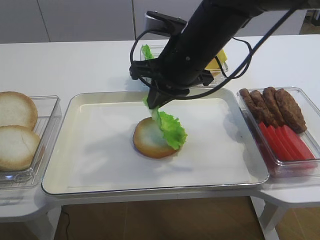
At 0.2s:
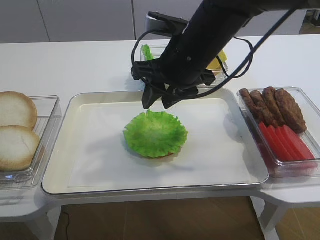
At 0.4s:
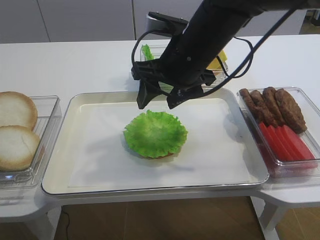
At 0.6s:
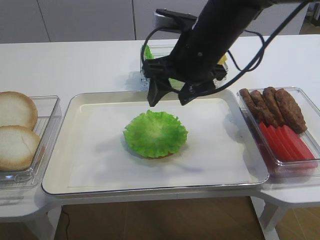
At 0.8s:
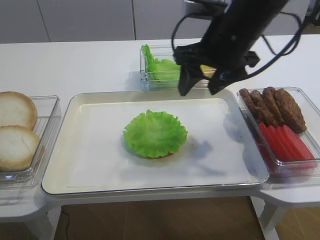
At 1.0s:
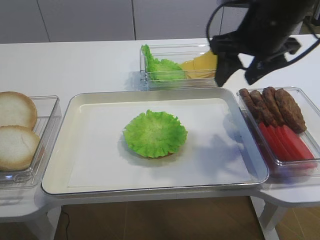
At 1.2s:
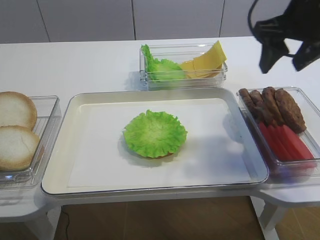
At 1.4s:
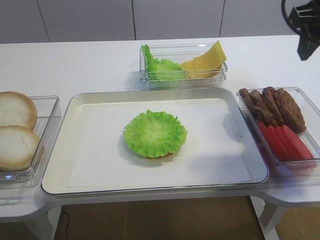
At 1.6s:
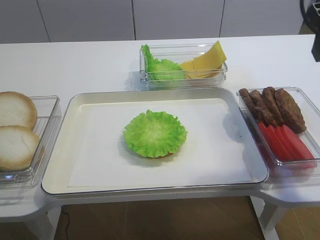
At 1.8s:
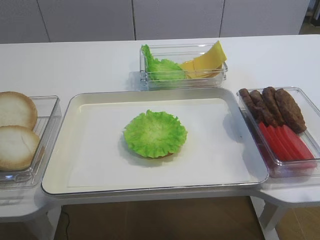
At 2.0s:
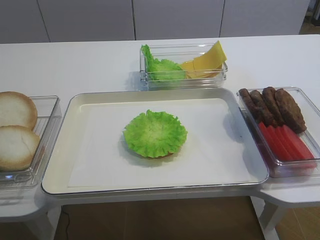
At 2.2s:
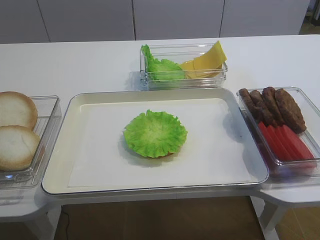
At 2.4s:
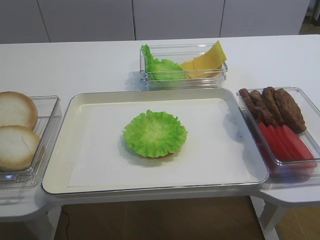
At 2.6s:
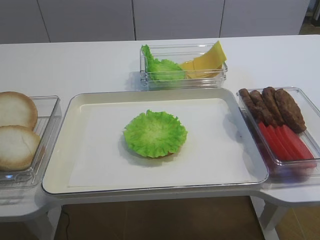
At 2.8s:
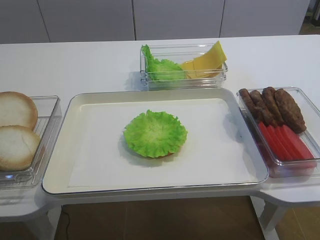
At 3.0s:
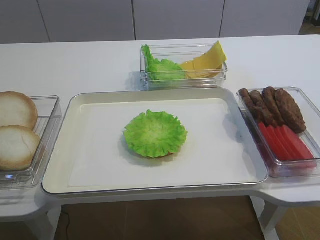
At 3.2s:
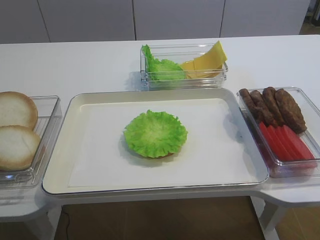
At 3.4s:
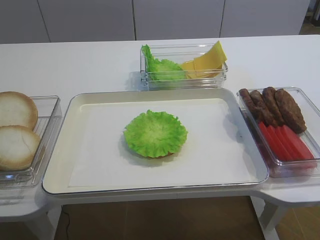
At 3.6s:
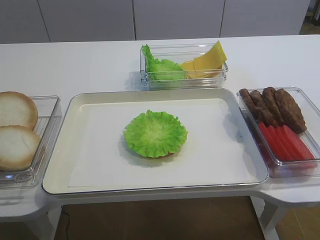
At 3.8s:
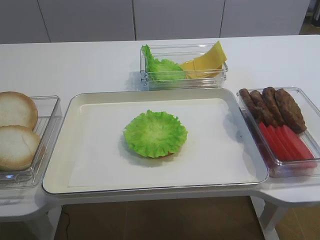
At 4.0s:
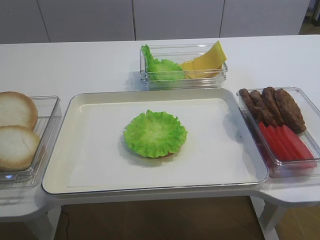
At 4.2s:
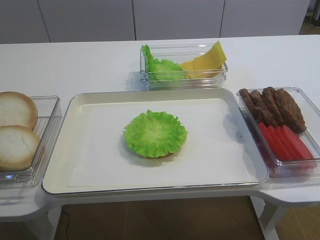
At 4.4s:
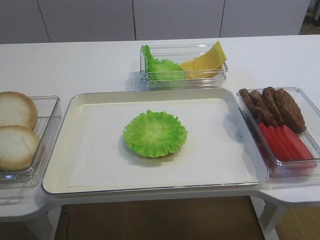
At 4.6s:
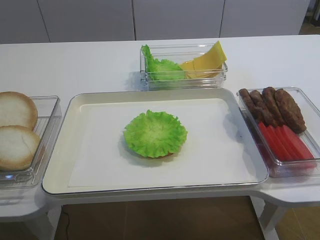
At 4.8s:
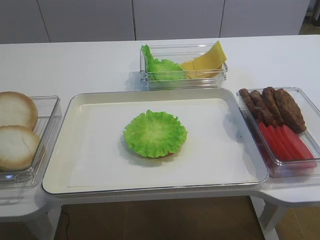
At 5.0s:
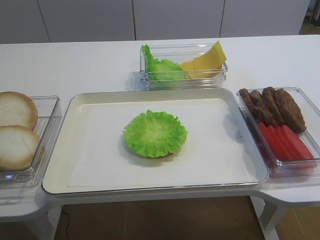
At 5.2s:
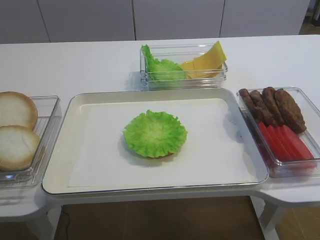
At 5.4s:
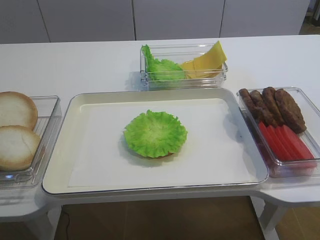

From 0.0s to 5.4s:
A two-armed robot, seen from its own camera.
From 0.0s to 1.4s: The right gripper heads to the right and upward, covering some 20 cm, and opens.
From 1.4s to 2.8s: The right gripper is displaced backward by roughly 30 cm.

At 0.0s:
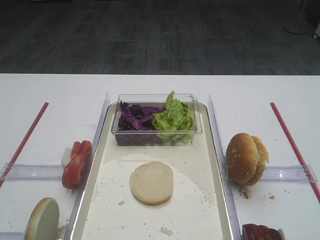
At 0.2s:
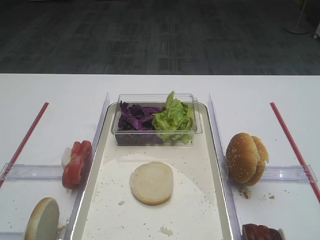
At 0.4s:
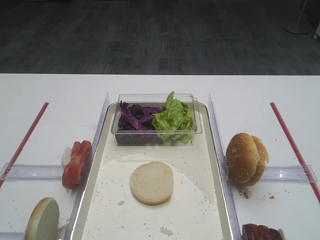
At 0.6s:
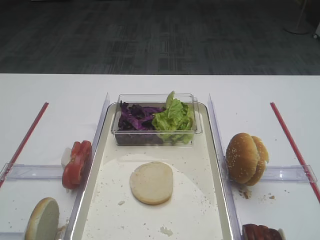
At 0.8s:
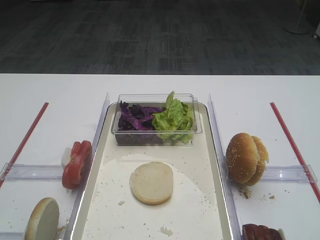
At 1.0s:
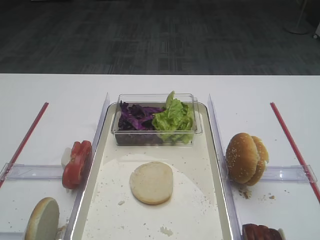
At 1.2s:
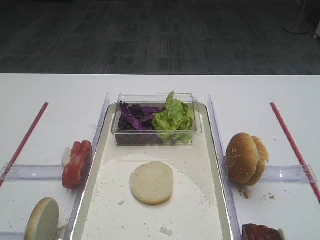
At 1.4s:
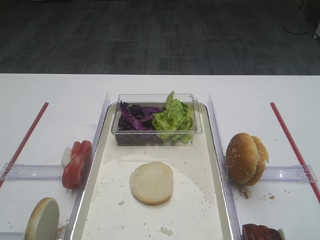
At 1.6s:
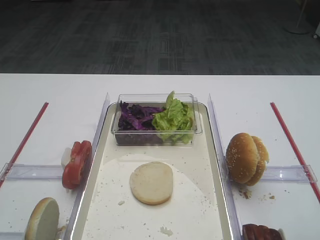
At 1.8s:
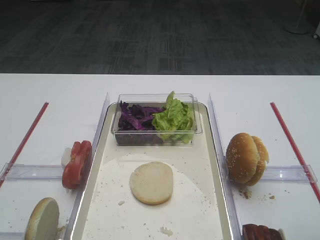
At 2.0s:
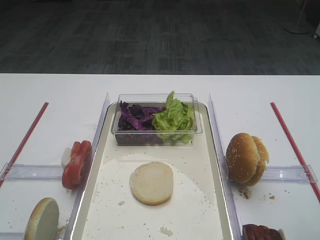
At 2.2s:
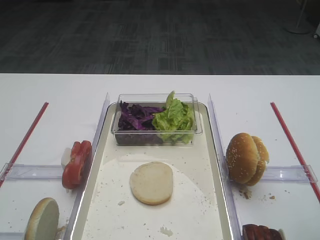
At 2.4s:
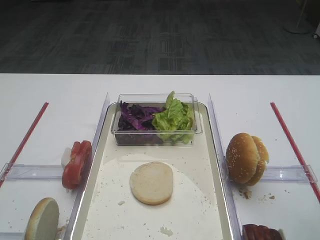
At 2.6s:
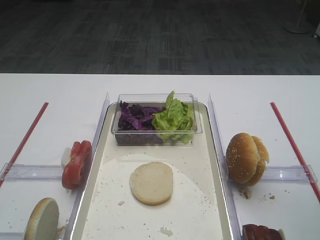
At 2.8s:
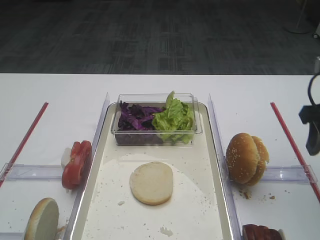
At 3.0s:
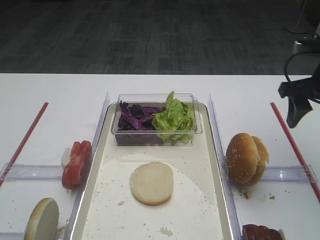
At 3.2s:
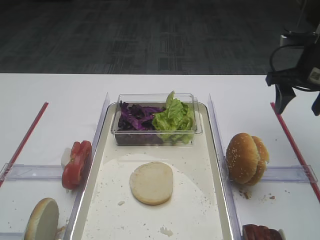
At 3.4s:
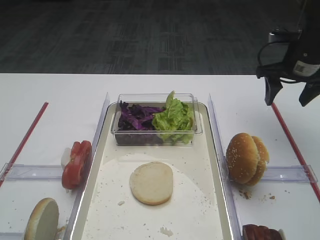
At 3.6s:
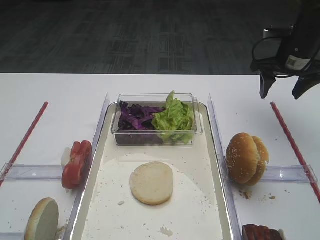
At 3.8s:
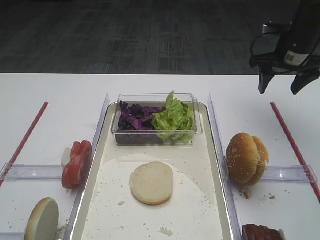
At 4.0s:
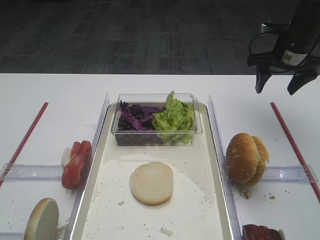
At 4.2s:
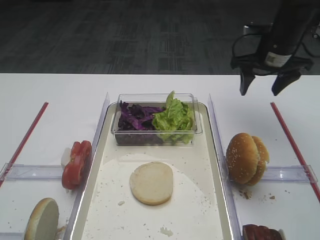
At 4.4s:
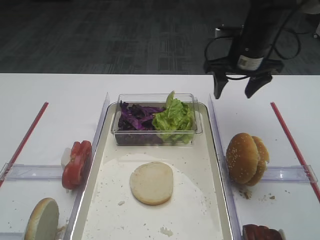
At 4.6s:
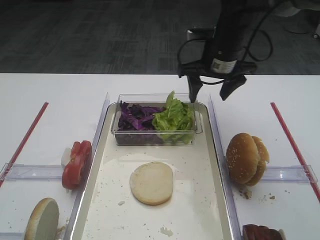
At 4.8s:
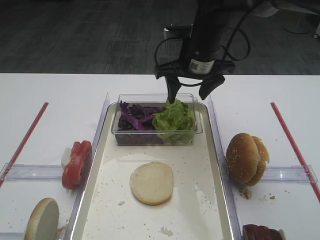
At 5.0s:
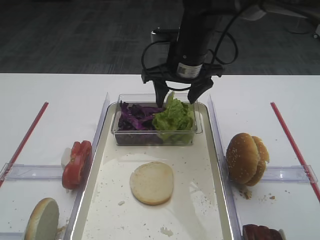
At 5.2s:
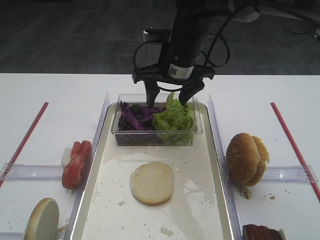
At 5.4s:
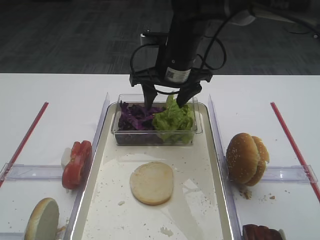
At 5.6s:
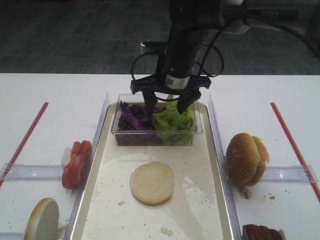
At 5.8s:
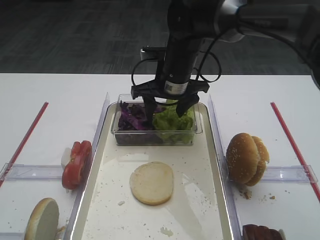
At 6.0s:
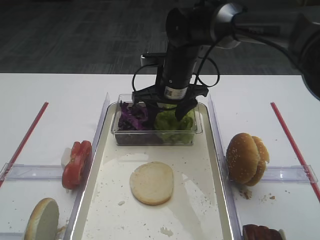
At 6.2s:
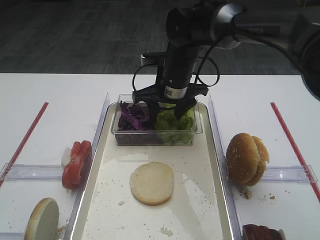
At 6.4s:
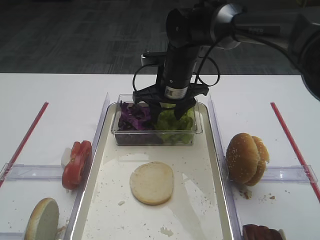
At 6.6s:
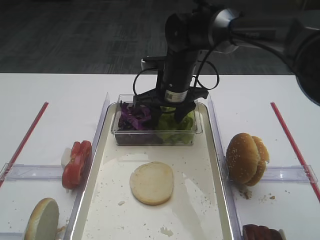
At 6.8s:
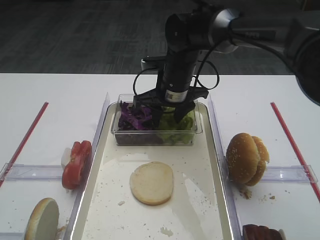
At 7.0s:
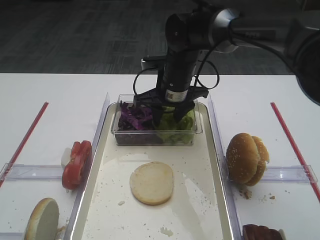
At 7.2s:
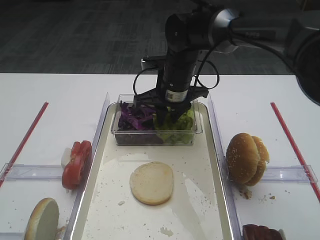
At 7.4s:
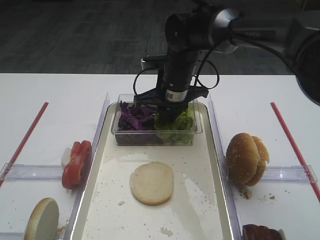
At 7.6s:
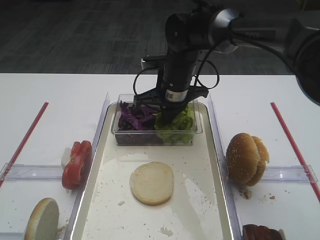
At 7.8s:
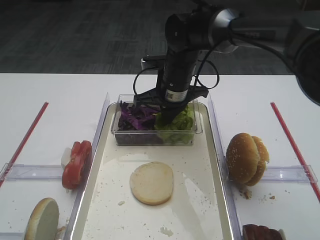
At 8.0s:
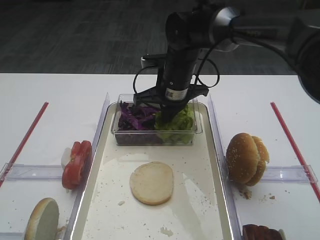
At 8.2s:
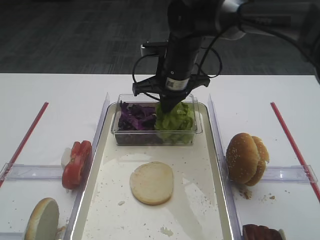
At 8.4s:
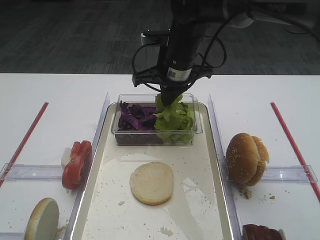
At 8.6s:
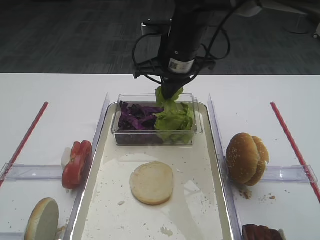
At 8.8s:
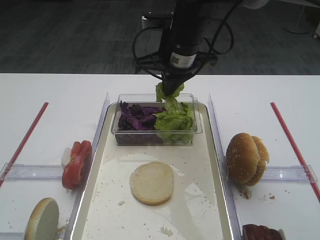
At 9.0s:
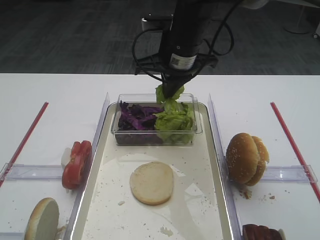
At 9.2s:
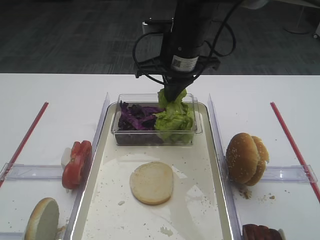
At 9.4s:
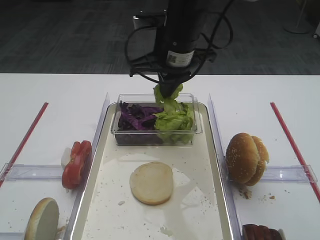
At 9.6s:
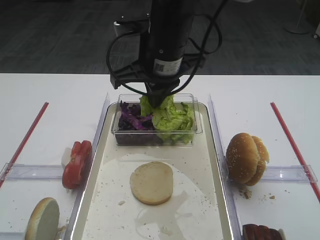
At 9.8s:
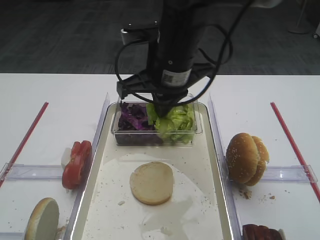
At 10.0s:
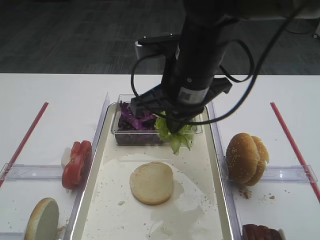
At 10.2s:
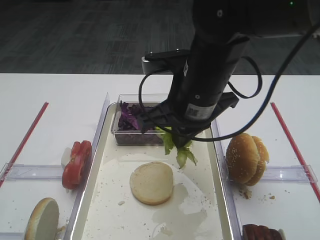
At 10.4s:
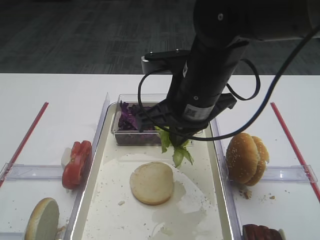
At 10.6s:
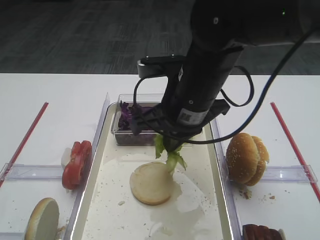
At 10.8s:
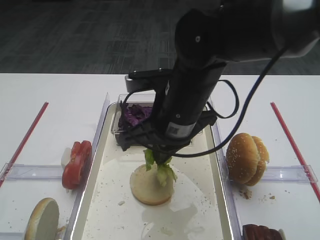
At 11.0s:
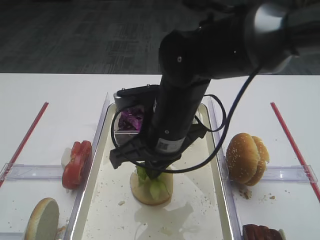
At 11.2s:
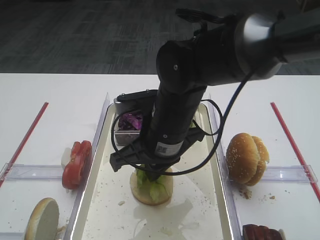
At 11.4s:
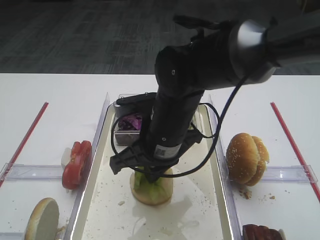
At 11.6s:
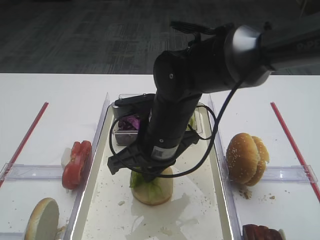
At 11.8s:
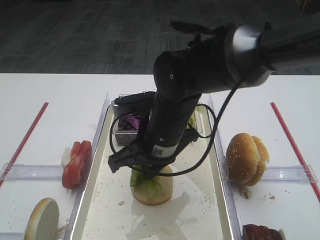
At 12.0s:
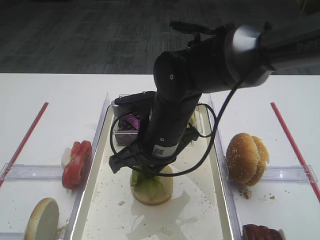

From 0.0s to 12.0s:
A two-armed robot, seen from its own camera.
Step, from 0.0s to 8.8s: Pick up the lettuce leaf with the right gripper.
From 1.6s to 3.0s: The right gripper heads forward, covering roughly 25 cm.
From 3.0s to 4.4s: The right gripper goes some 15 cm forward and to the left.
From 4.4s to 6.0s: The right gripper travels to the left by roughly 15 cm.
From 6.0s to 7.6s: The right gripper closes up.
From 7.6s to 9.0s: The right gripper heads upward, covering approximately 10 cm.
From 9.0s to 10.4s: The right gripper is displaced backward by roughly 10 cm.
From 10.4s to 12.0s: The right gripper travels downward by approximately 5 cm.

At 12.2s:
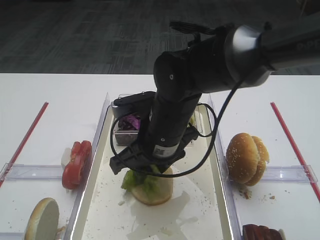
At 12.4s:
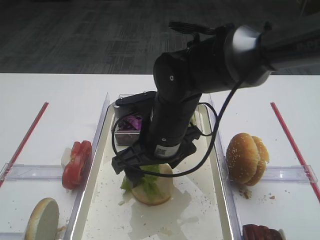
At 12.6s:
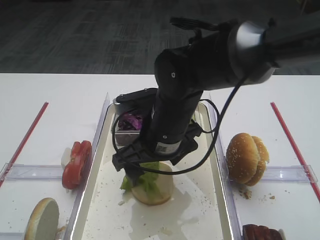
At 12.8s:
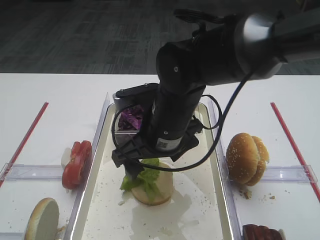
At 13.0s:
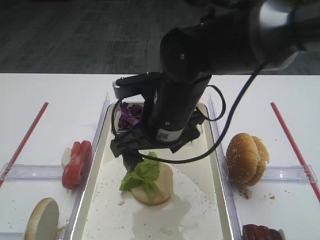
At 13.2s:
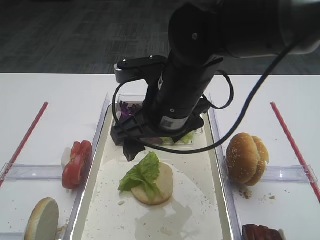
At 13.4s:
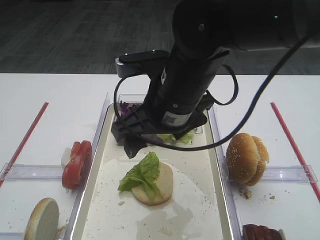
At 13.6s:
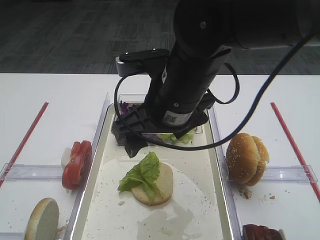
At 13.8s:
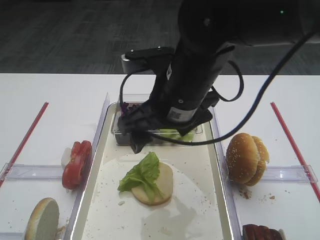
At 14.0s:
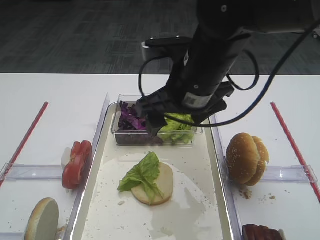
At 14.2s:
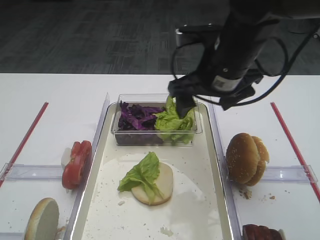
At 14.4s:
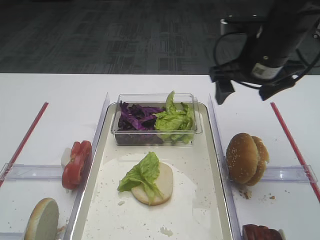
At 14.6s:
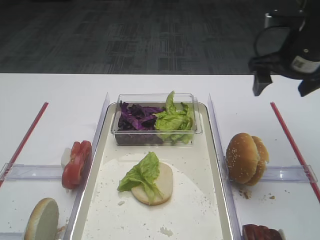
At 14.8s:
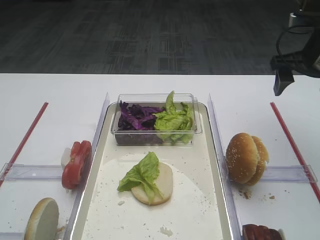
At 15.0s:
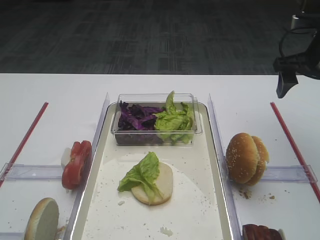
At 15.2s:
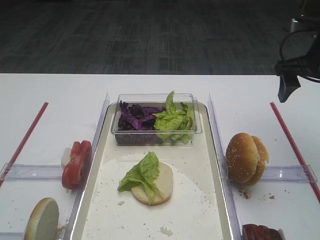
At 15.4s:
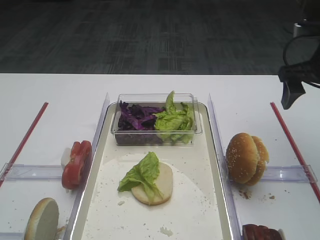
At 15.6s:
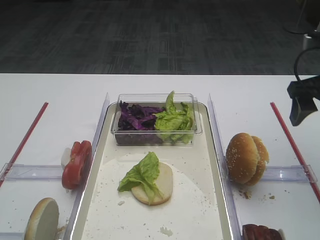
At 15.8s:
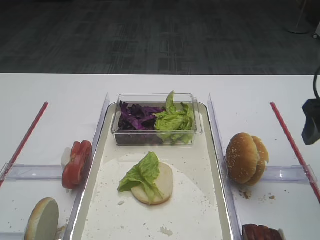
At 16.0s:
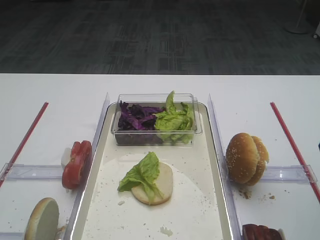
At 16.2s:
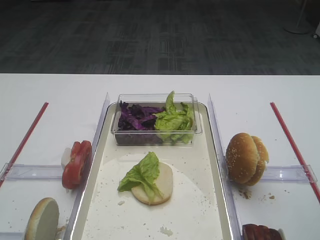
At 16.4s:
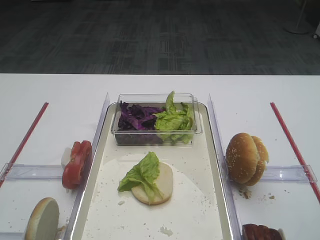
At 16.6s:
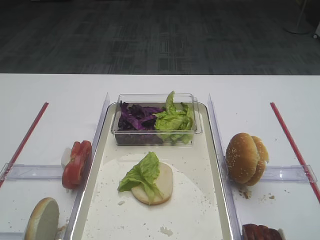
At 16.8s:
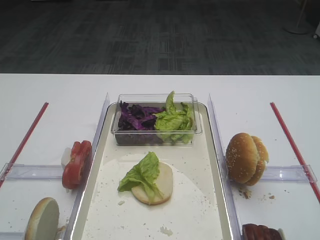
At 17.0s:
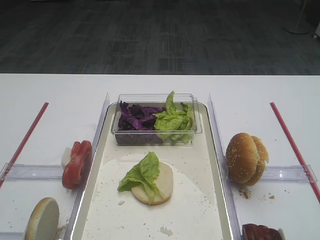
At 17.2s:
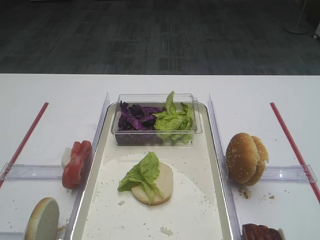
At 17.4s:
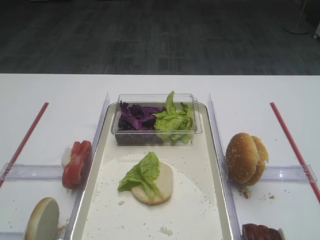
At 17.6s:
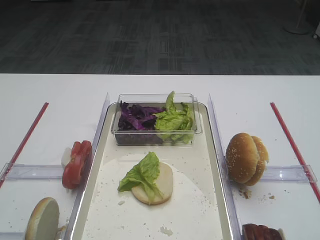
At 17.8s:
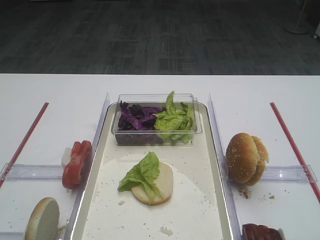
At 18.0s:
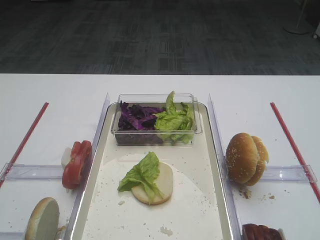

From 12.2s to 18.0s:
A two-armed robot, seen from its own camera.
From 12.2s to 13.6s: The right gripper goes approximately 5 cm upward, and opens up.
From 13.6s to 15.0s: The right gripper heads to the right, covering roughly 25 cm.
From 15.0s to 16.6s: The right gripper travels backward by approximately 30 cm.
